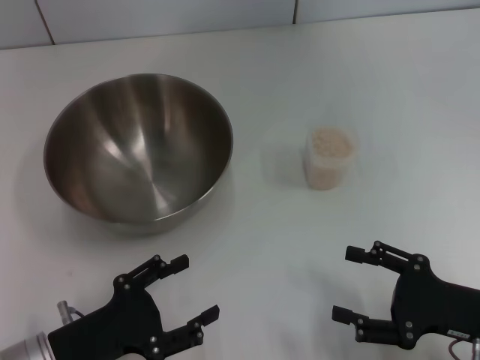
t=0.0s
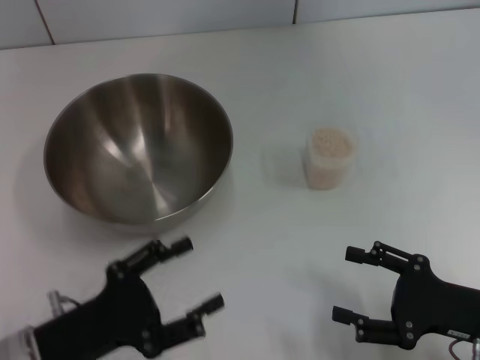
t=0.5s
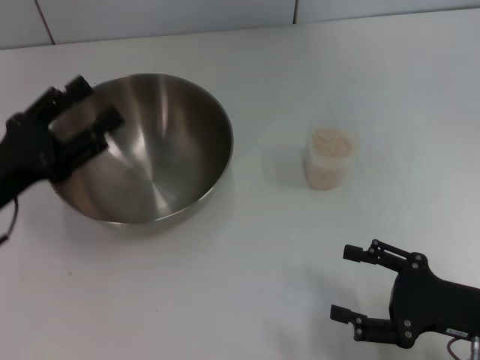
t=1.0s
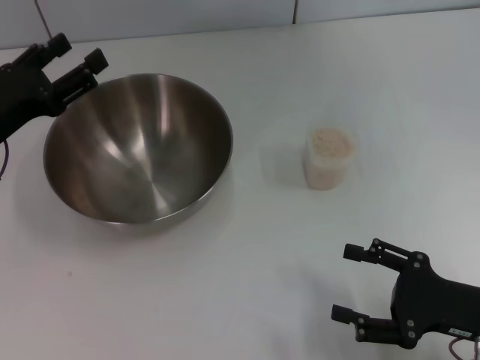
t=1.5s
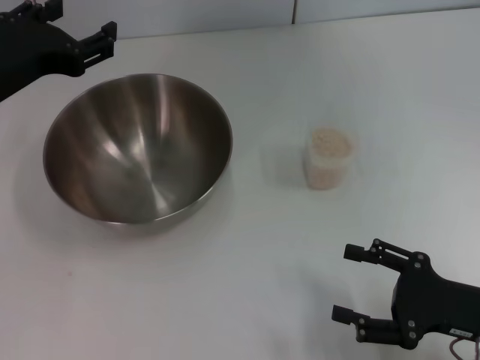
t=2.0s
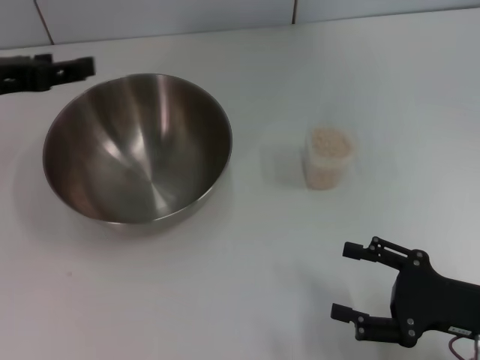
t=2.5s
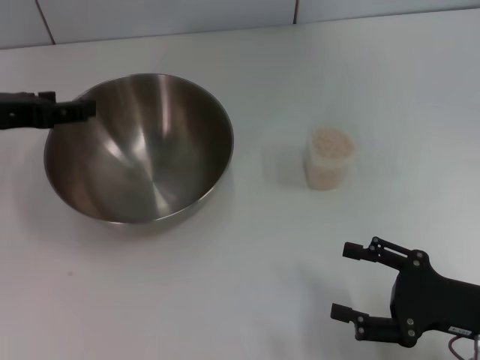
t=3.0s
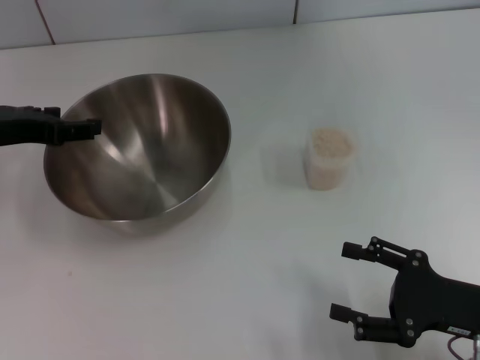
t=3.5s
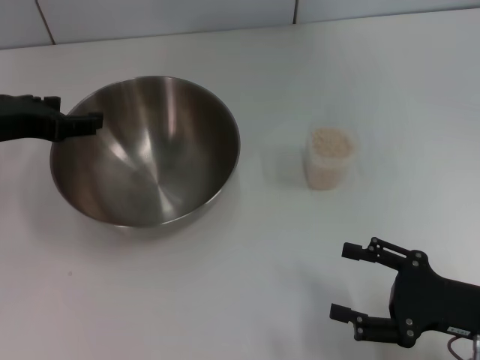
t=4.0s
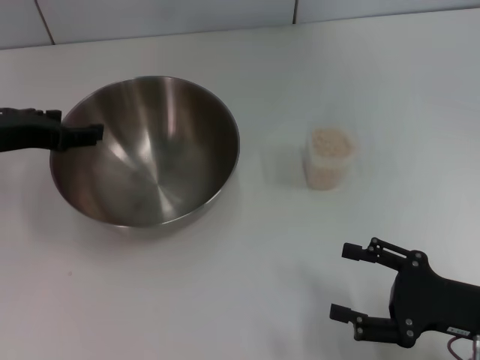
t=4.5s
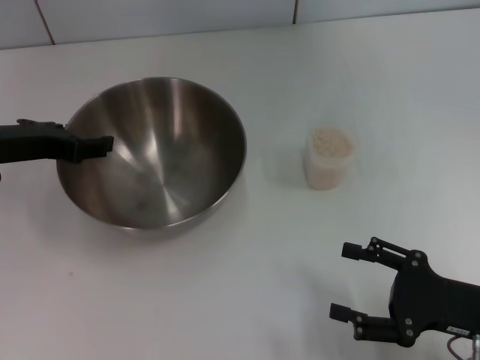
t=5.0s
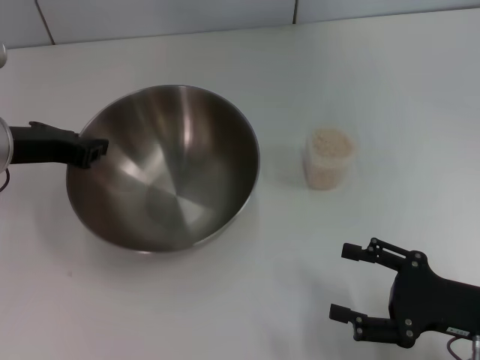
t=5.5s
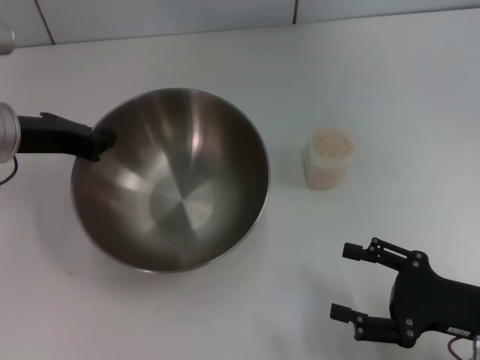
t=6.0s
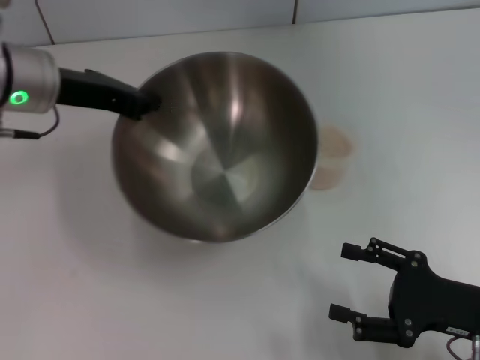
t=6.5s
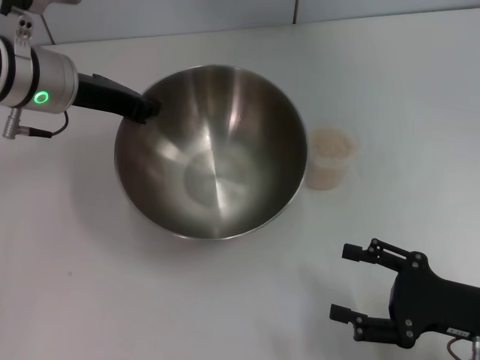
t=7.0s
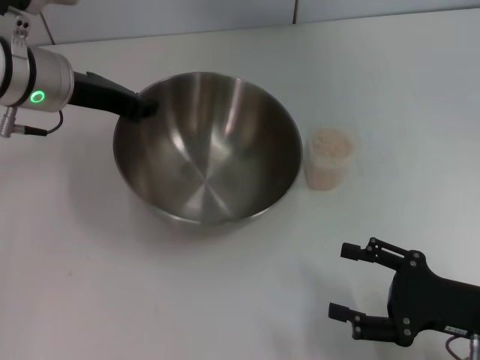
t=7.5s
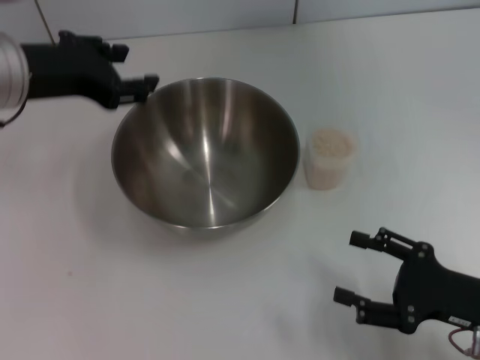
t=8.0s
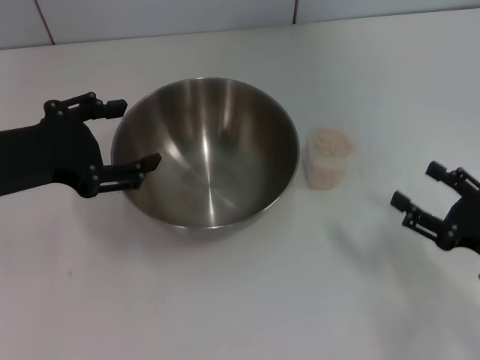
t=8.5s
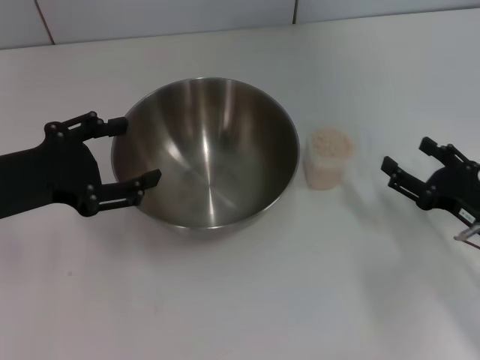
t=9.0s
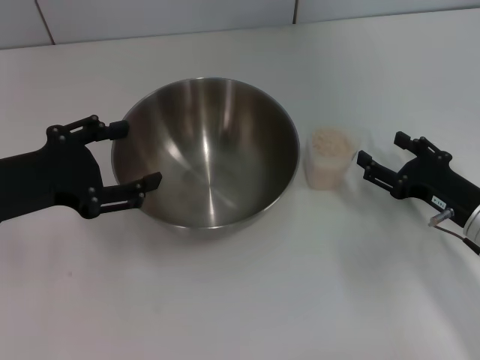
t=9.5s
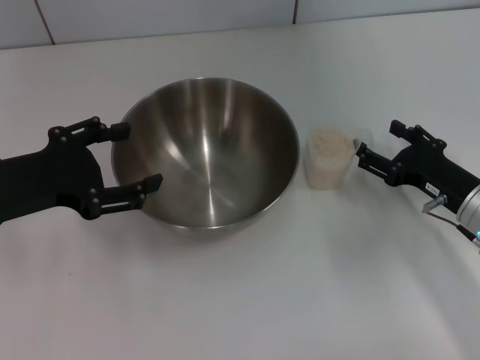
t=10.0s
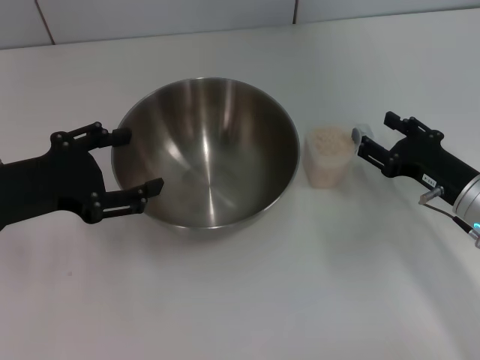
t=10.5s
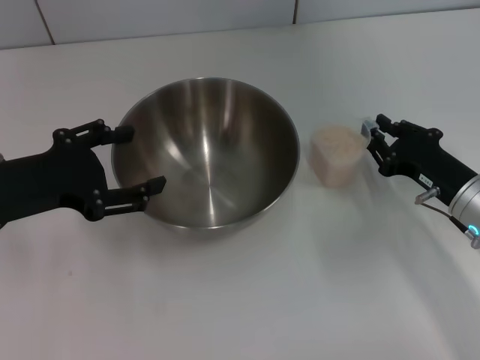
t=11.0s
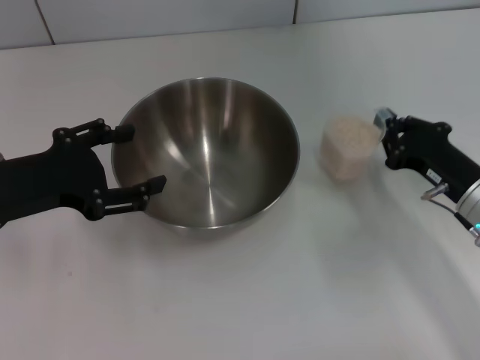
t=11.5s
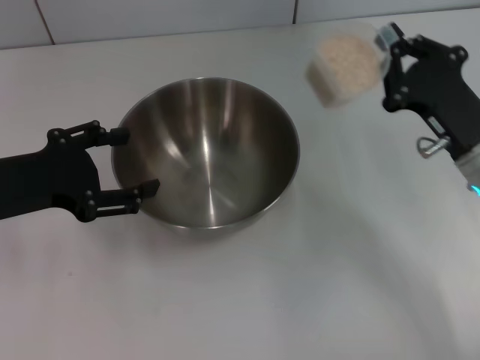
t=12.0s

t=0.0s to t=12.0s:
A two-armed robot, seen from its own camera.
Task of the whole recording: Place the bowl in the middle of the table with one hand and pour the rice from the grain cup into it with the other hand.
Step, t=0.0s to t=5.0s: Pick up the bowl with the left gripper.
Step, t=5.5s to t=8.0s: Place the bowl in the center of view with the left gripper.
Step, t=8.5s to t=12.0s: Pick up the cup with rice in it with the right gripper.
t=0.0s to t=2.0s: The left gripper goes about 25 cm upward and forward.
t=2.0s to t=4.0s: The left gripper moves about 5 cm.
t=4.0s to t=6.0s: The left gripper closes.
t=6.0s to t=8.0s: The left gripper moves upward, about 5 cm, and opens up.
t=8.0s to t=10.0s: The right gripper heads forward, covering approximately 10 cm, while the left gripper heads backward and downward, covering about 10 cm, and opens.
t=10.0s to t=12.0s: The right gripper shifts approximately 5 cm upward, and closes.

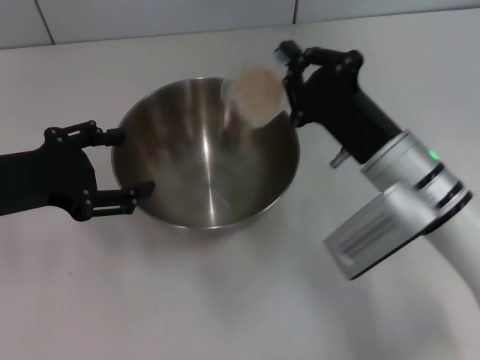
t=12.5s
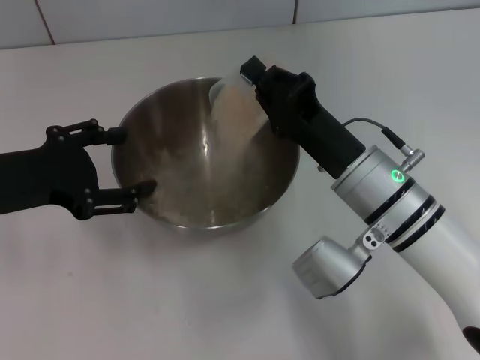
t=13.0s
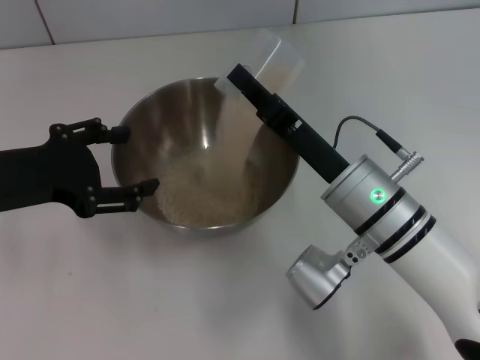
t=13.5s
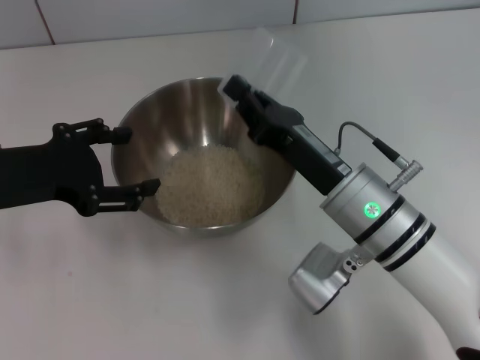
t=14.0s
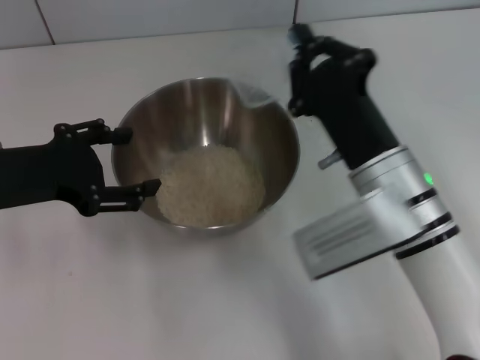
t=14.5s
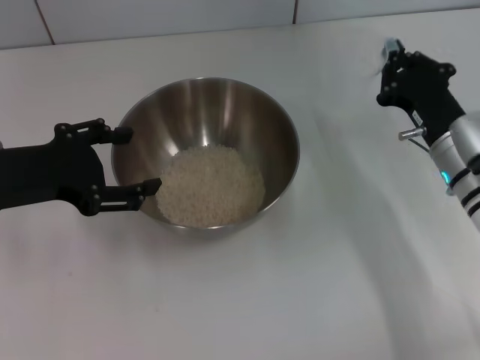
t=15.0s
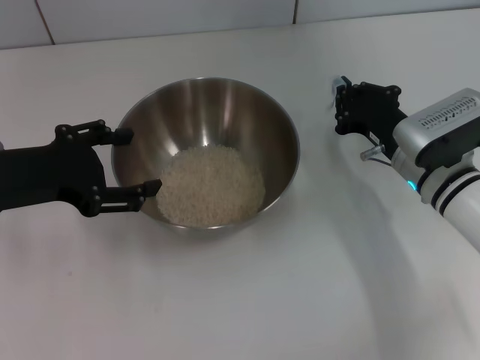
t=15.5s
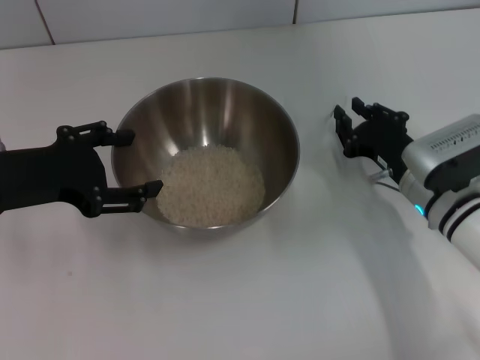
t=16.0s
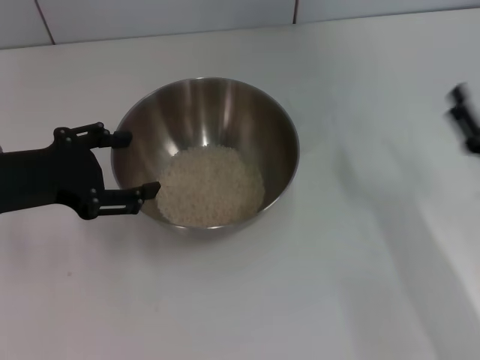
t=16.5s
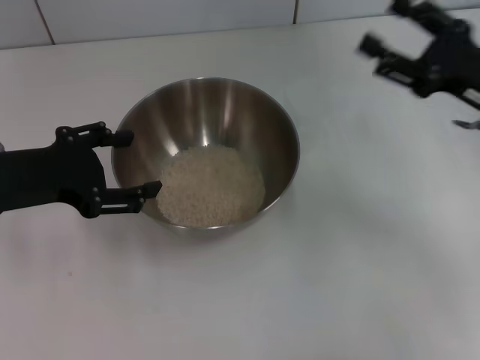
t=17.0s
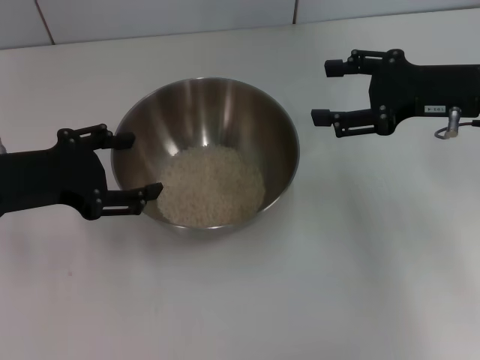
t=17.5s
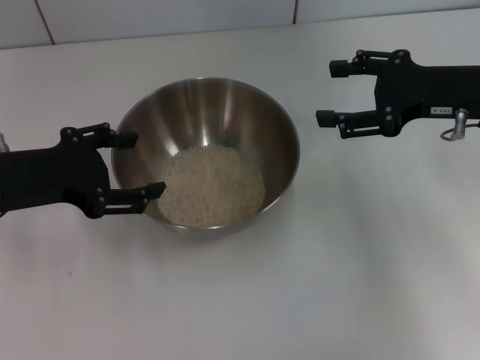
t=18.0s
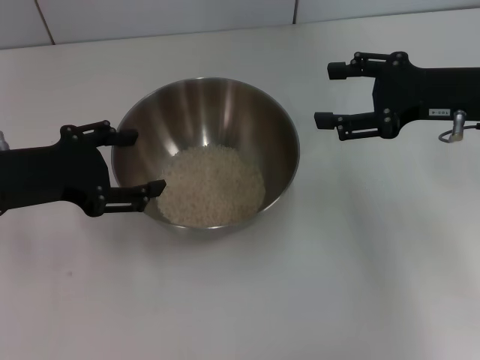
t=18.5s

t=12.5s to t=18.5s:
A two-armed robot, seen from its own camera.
Task of the whole recording: Place the bowl in the middle of the table with one hand and pour the rice from the grain cup into it with the other hand.
Step, t=12.5s to t=14.5s: Pour the rice from the cup into the bowl with the right gripper.
Step, t=15.0s to t=16.0s: Place the cup on the table with the right gripper.
t=14.5s to t=16.5s: The right gripper shifts roughly 15 cm to the right, and opens.
t=16.5s to t=18.5s: The right gripper heads upward and forward, covering about 15 cm.

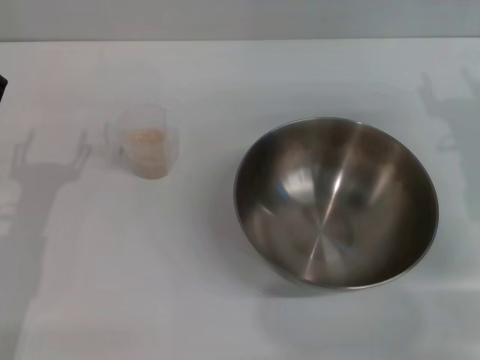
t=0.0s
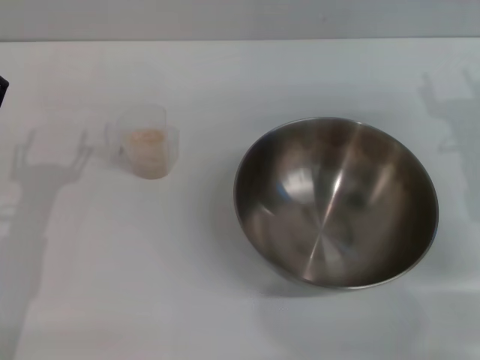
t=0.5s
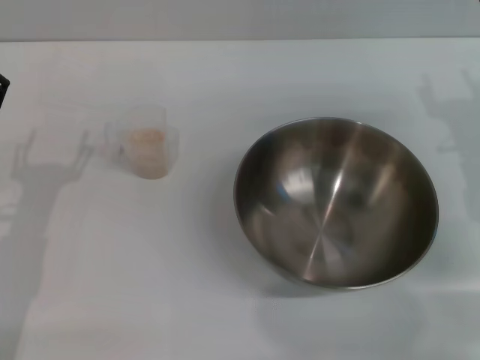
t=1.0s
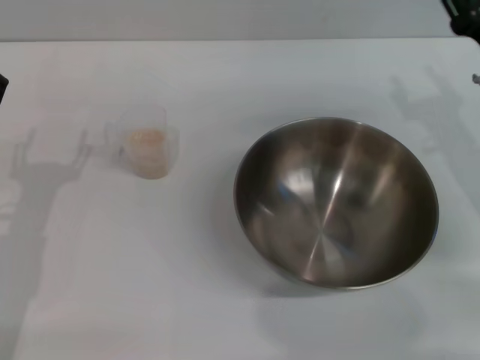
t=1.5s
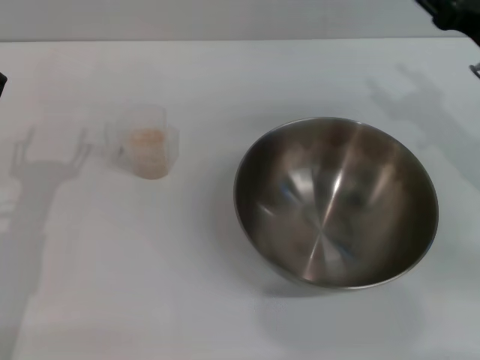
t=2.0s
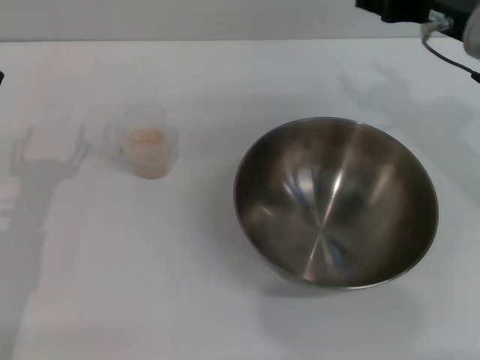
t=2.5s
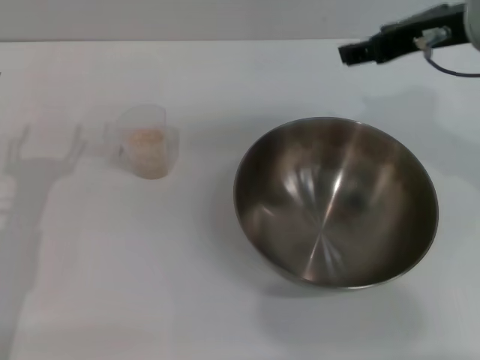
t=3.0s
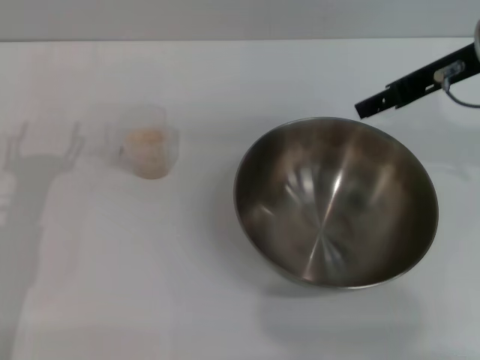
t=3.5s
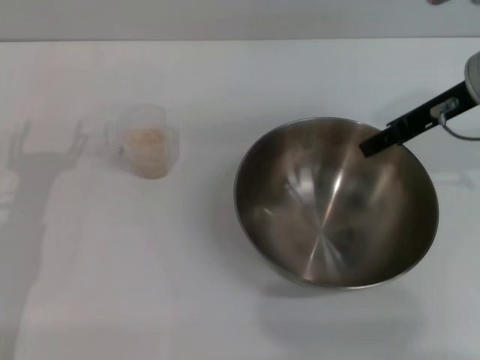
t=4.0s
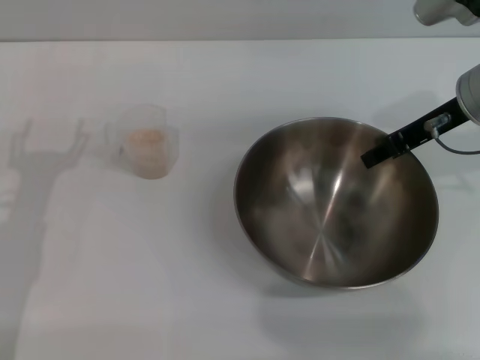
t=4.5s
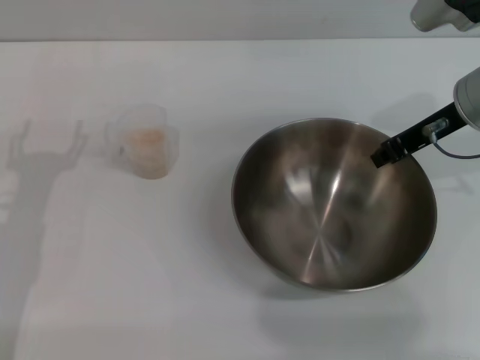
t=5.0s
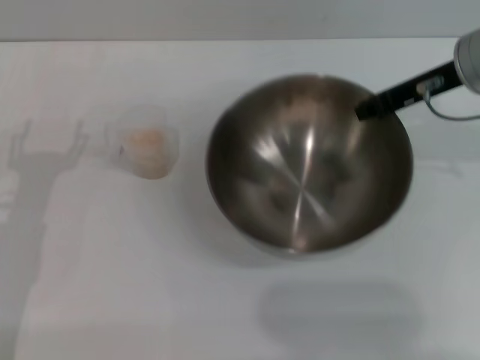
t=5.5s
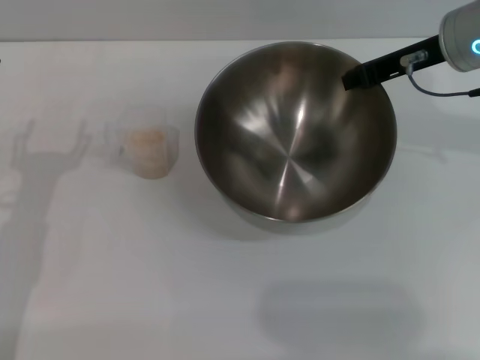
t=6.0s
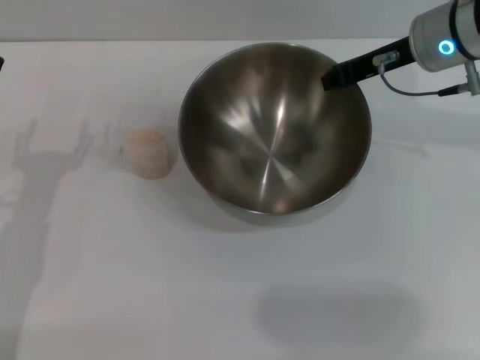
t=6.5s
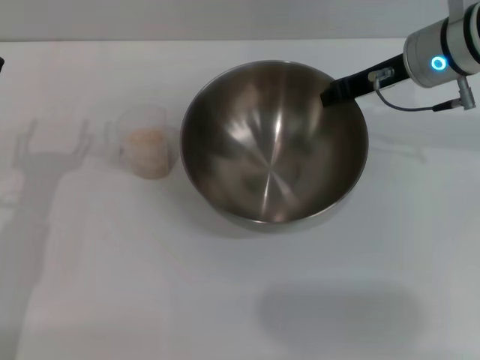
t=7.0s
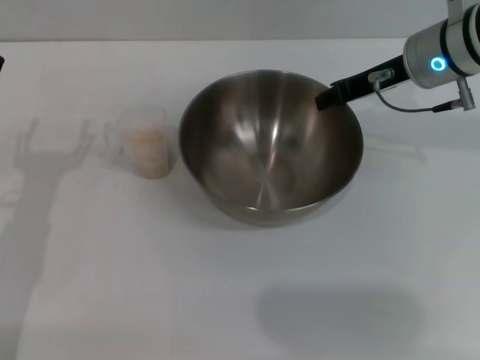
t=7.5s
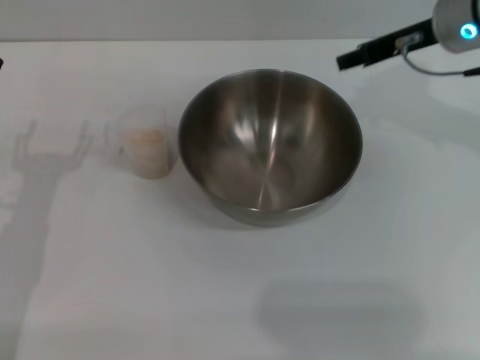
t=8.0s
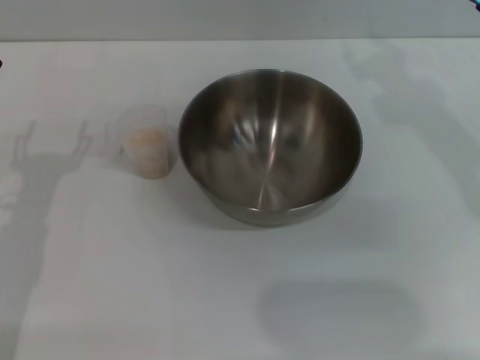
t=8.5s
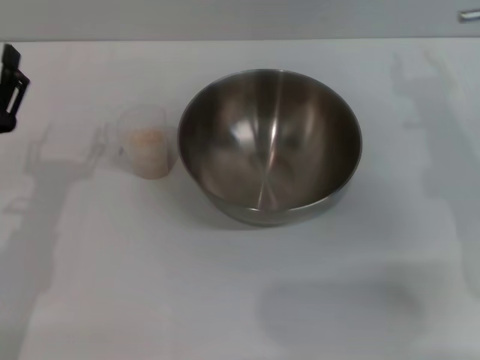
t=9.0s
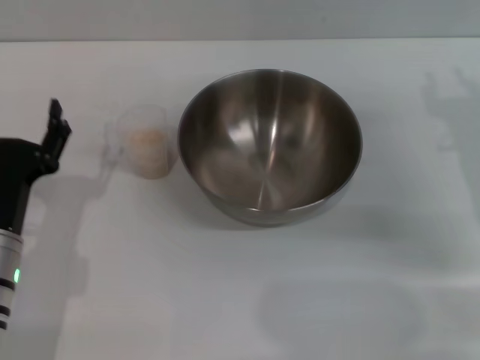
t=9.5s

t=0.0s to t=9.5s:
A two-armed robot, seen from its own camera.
Task of the whole recording: Place the bowl in the middle of the table with one hand and pour the rice from the grain cup into it with the other hand.
Step, t=0.0s to t=5.5s: Pick up the bowl with the right gripper.
Step, t=6.0s to t=8.0s: Place the bowl in the center of view with the right gripper.
t=0.0s to t=2.0s: The right gripper changes place by approximately 5 cm.
t=2.0s to t=4.0s: The right gripper shifts about 5 cm upward.
t=4.0s to t=5.5s: The right gripper closes.
t=5.5s to t=7.5s: The right gripper shifts by roughly 5 cm.
t=7.5s to t=9.5s: The right gripper travels backward, to the right and downward by some 15 cm, and opens. The left gripper moves approximately 5 cm.
